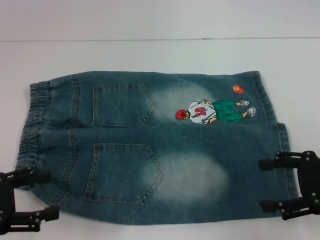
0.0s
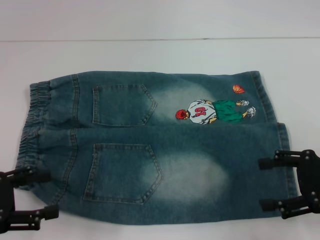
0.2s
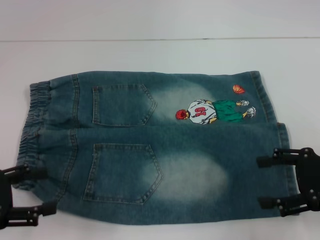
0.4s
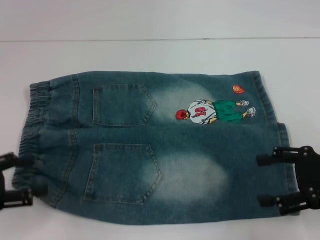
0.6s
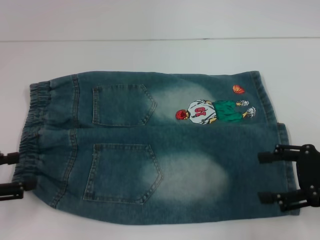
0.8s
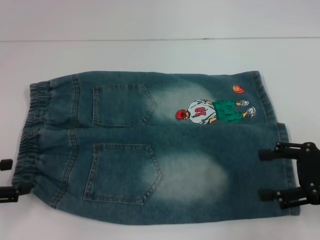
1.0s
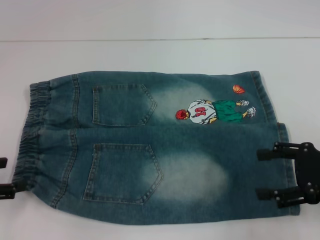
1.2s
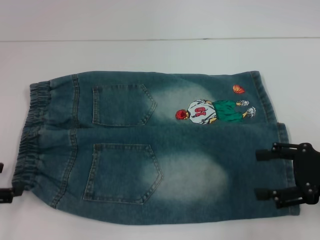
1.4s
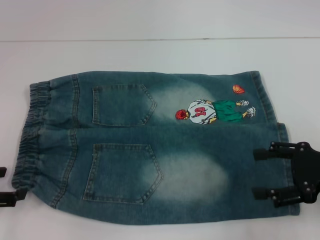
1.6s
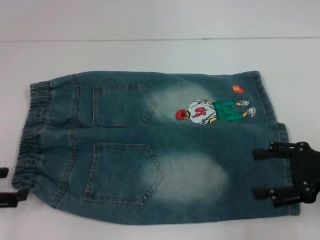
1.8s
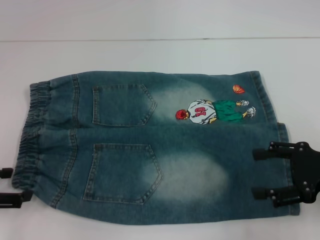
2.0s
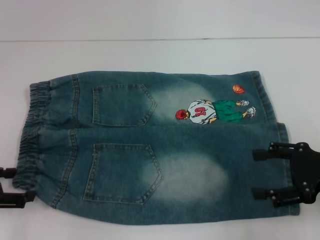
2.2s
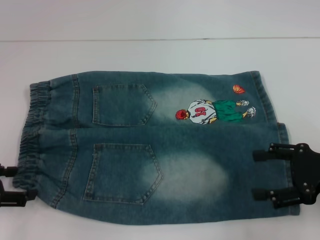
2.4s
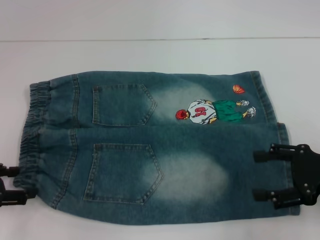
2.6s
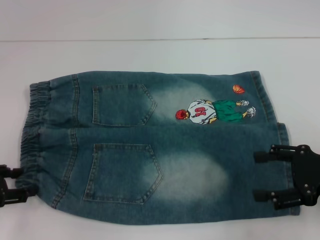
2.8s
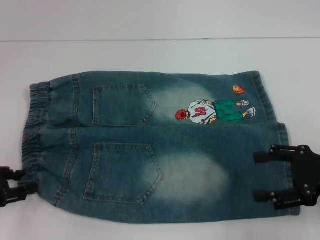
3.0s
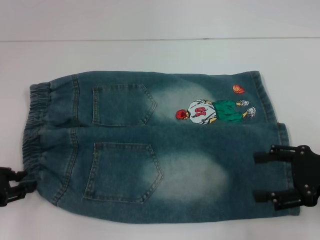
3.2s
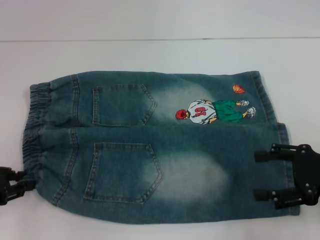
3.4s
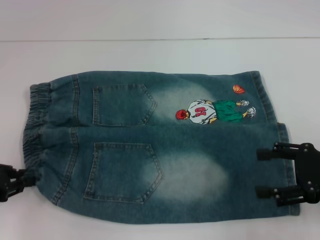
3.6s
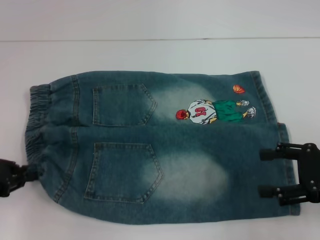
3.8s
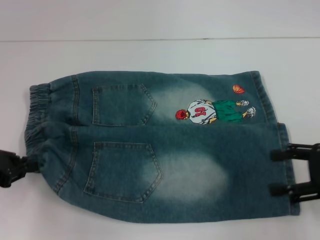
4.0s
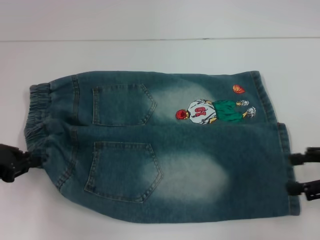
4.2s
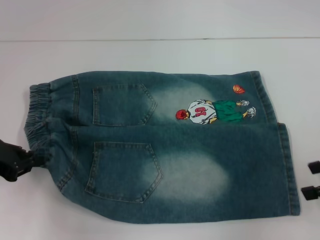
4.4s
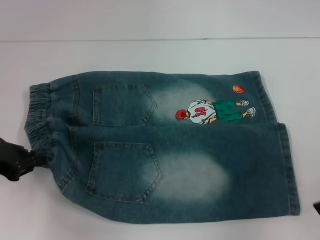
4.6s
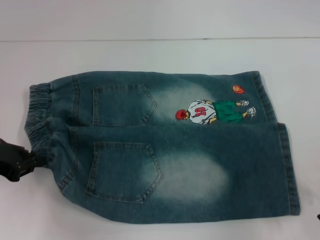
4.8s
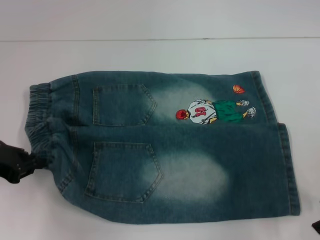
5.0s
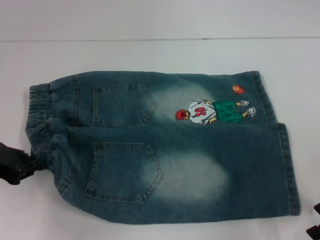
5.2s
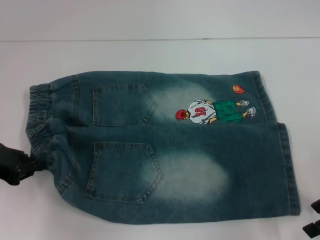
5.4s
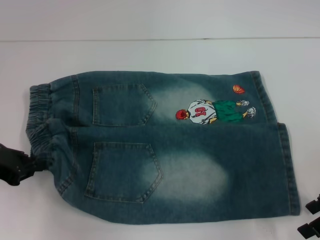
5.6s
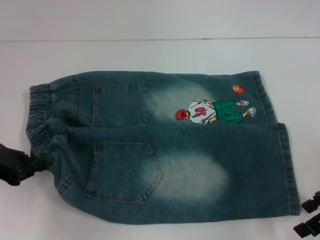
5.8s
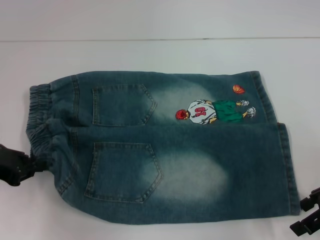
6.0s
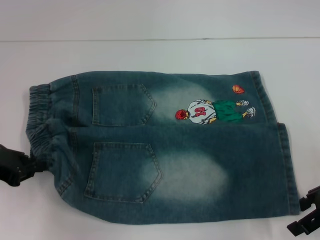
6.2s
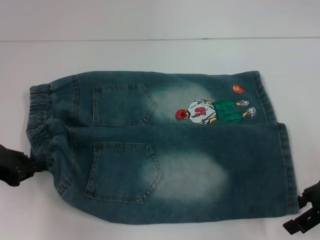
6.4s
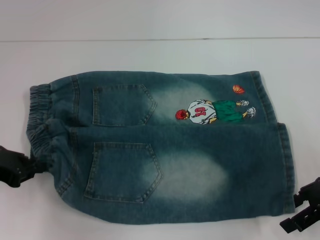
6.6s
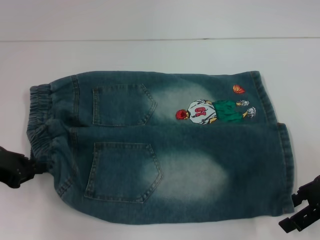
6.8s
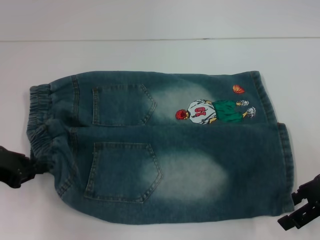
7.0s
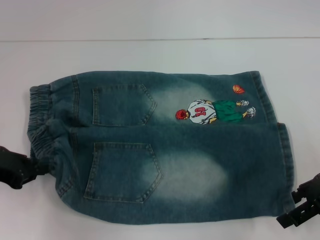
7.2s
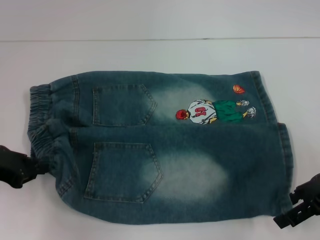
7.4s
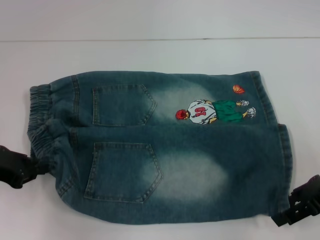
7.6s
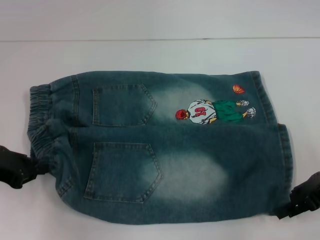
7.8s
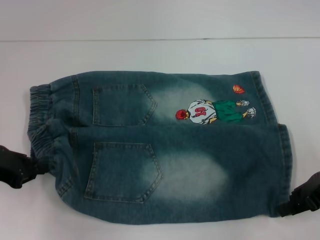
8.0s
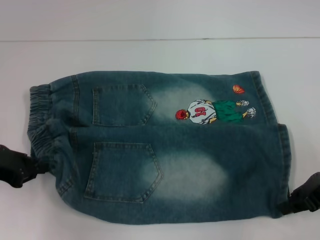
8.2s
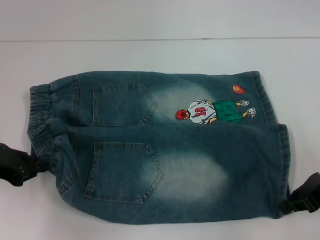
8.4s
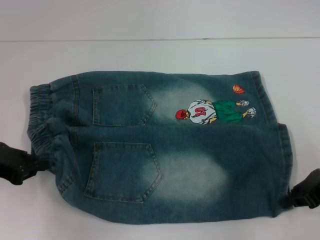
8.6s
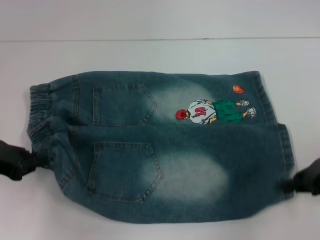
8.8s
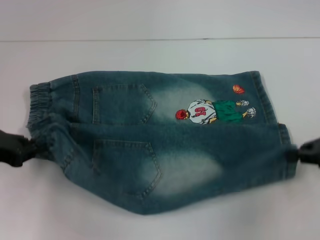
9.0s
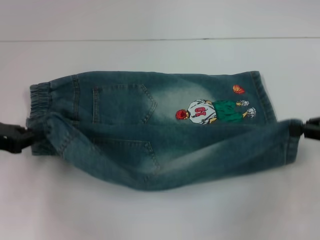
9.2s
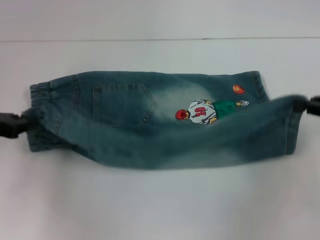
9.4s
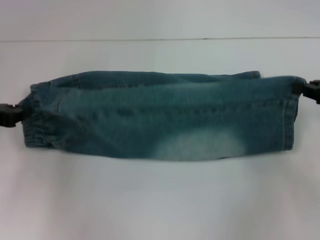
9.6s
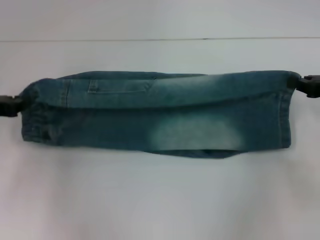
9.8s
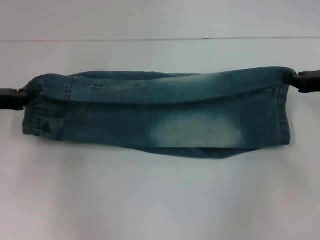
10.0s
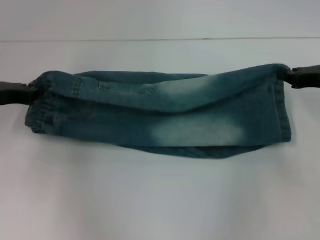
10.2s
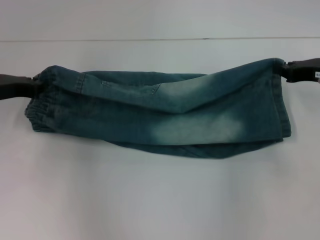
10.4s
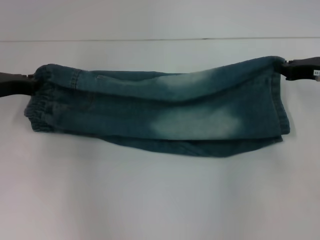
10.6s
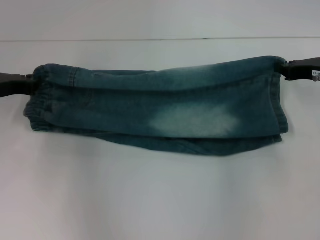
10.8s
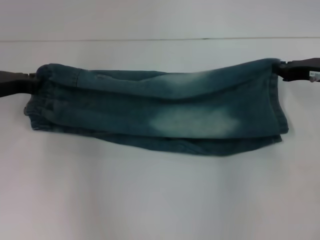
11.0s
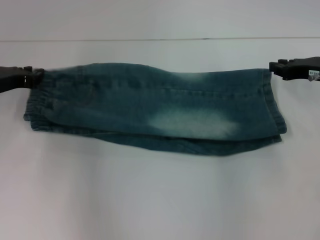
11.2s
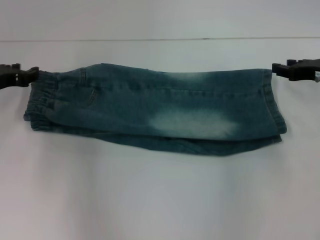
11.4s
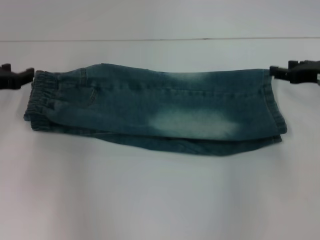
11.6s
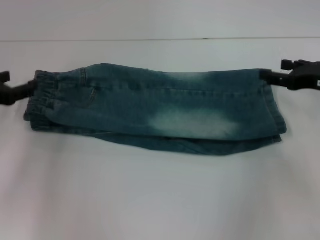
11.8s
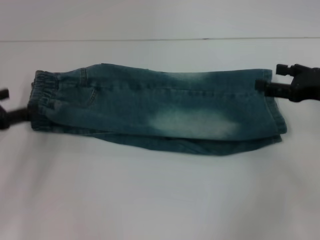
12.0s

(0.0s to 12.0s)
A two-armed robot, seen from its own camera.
Step, 0.0s - 3.2s: Hold the lower left waistband with your left hand.
Step, 3.4s - 8.0s: Grab the lower right pant leg with your right hand.
Step, 8.2s - 11.4s: Fold upward with your right hand.
1.6s - 3.0s: The grippers make only small movements.
3.0s - 4.4s: The right gripper shifts by some 5 cm. Meanwhile the left gripper shifts by roughly 5 cm, and closes up.
4.4s - 6.0s: The right gripper ends up approximately 5 cm from where it was.
6.0s - 7.6s: The grippers make only small movements.
7.6s - 9.0s: The right gripper closes its fingers.
9.0s - 10.4s: Both grippers travel together forward, roughly 10 cm.
10.4s - 12.0s: The left gripper moves backward, some 10 cm, and opens its fingers. Meanwhile the right gripper opens.

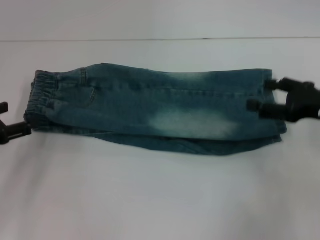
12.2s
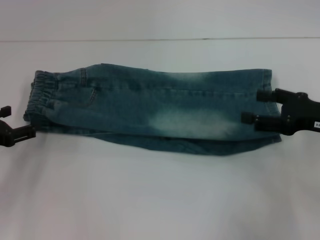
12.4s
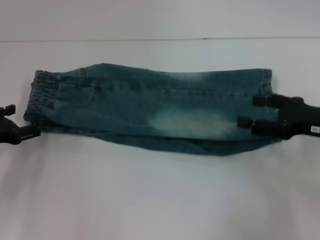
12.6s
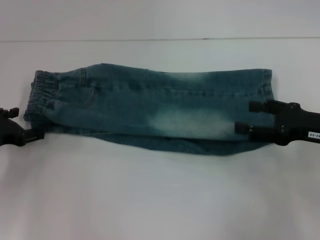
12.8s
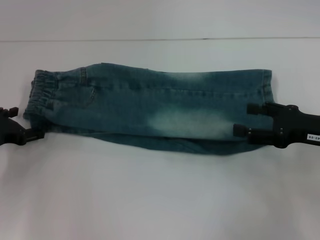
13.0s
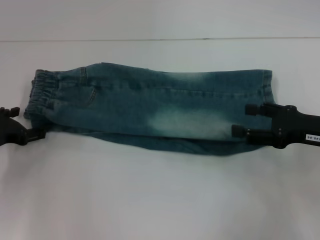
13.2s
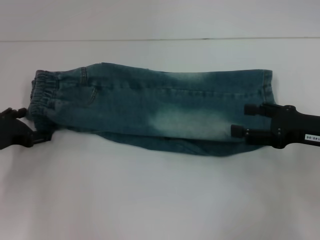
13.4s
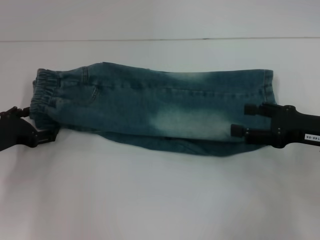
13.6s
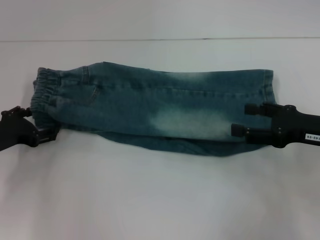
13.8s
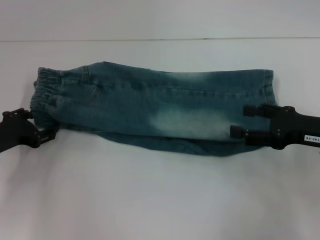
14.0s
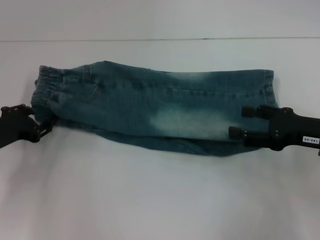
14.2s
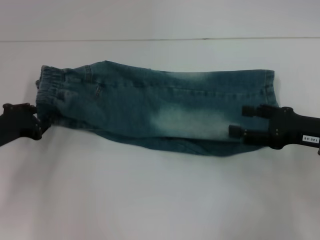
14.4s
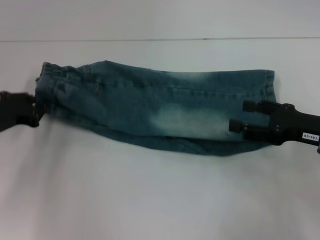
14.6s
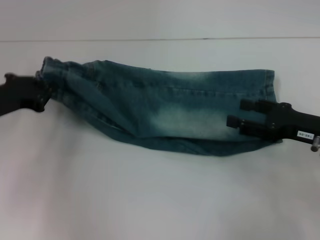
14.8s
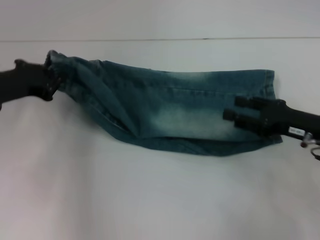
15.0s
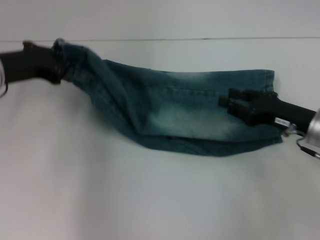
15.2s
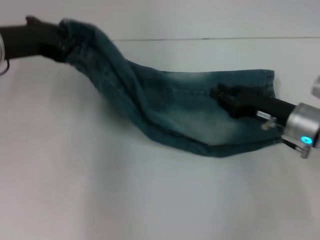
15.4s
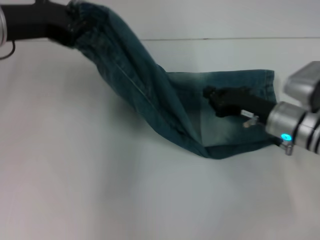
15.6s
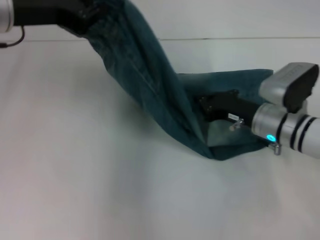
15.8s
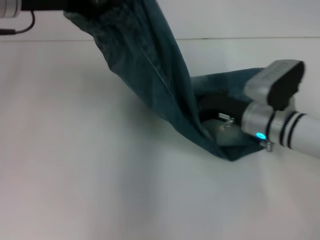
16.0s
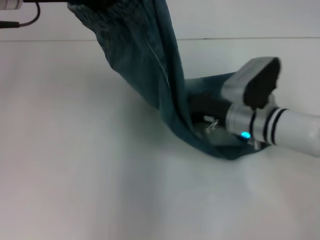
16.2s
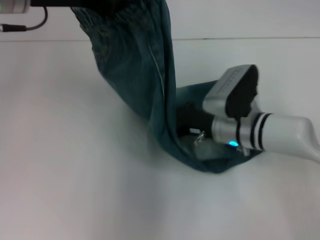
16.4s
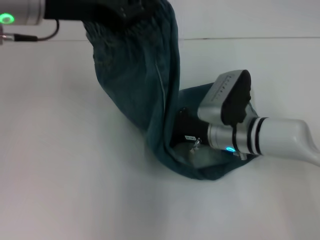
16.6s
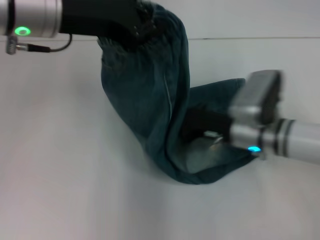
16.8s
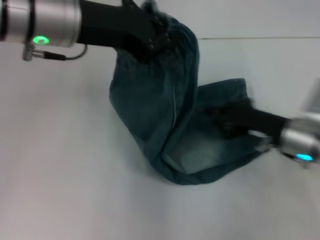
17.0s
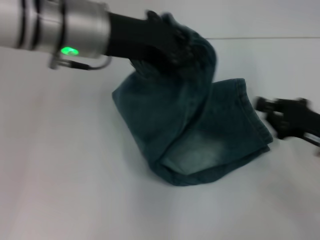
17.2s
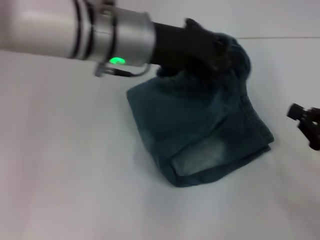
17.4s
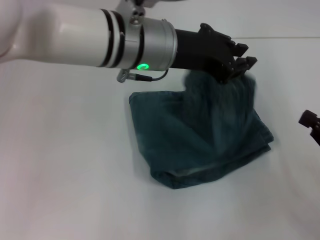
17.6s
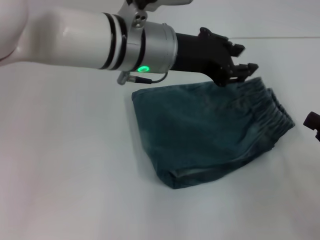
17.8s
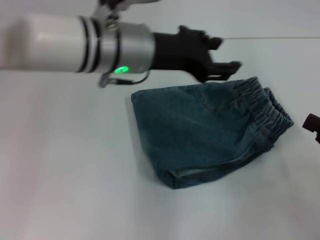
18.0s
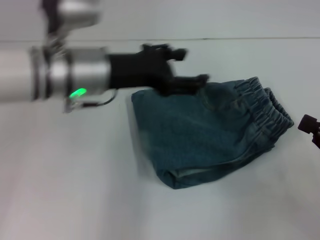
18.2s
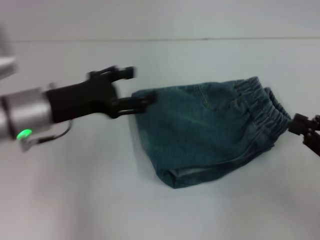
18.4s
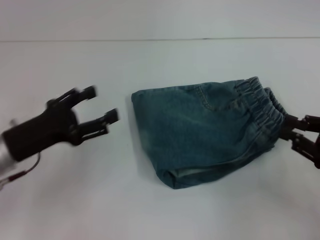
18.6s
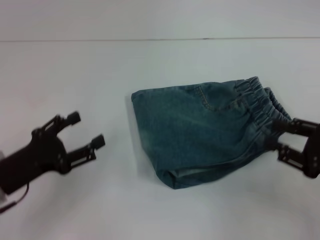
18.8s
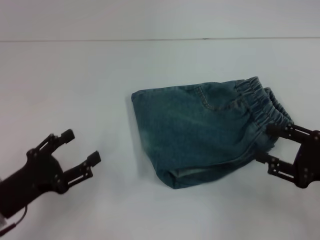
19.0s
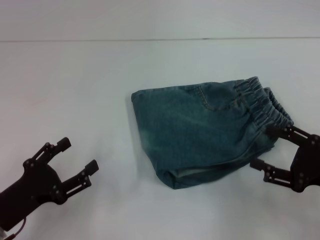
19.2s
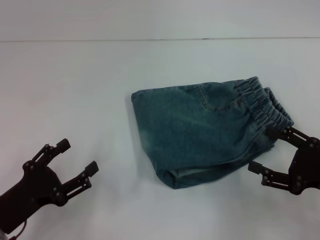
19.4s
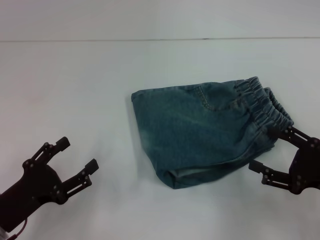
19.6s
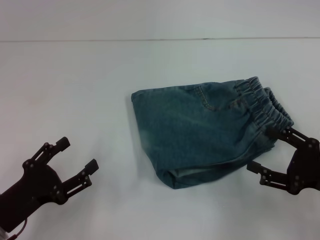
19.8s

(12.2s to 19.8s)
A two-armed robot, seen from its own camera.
Step, 12.2s - 14.2s: Hold the waistband with your left hand.
Step, 14.6s - 16.8s: Press the middle of the pants with your right hand.
Step, 17.0s - 18.2s: Fold to the right with your left hand.
12.2s - 13.8s: The left gripper changes place by about 5 cm.
13.8s - 15.2s: The left gripper shifts about 10 cm upward, and closes up; the right gripper shifts by about 5 cm, and closes up.
15.2s - 16.8s: The right gripper is displaced to the left by some 10 cm, and closes, while the left gripper is displaced upward and to the right by approximately 15 cm.
16.8s - 18.2s: The right gripper is displaced to the right and backward by roughly 20 cm, while the left gripper heads downward, covering approximately 10 cm, travels to the right and back again, approximately 10 cm each way, and opens its fingers.
18.2s - 19.8s: The left gripper heads backward, downward and to the left, covering approximately 25 cm, while the right gripper moves about 5 cm, and opens up.

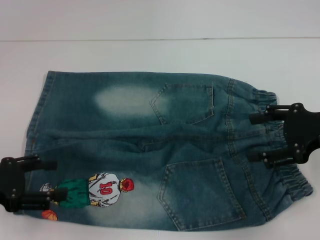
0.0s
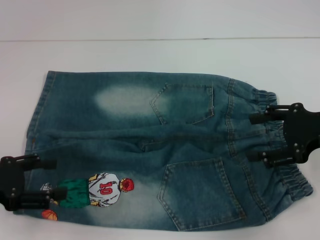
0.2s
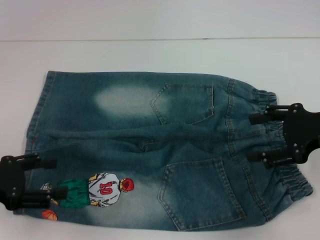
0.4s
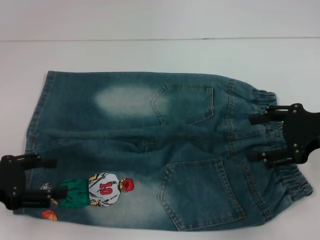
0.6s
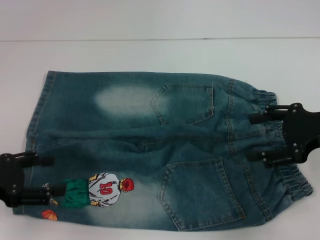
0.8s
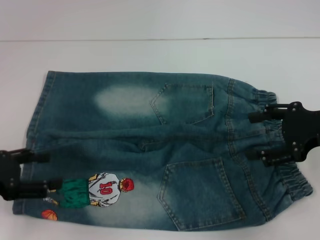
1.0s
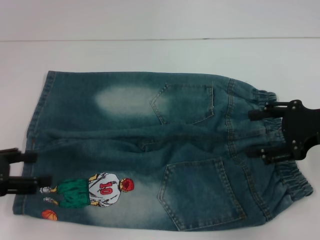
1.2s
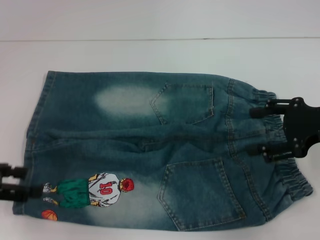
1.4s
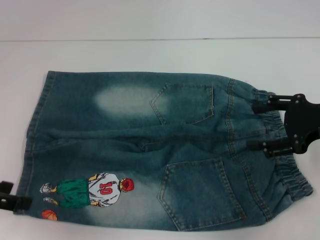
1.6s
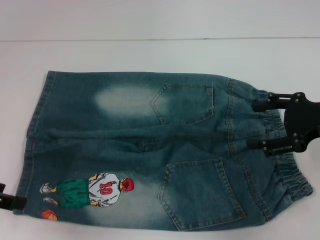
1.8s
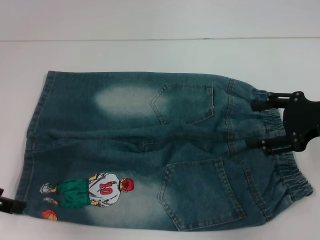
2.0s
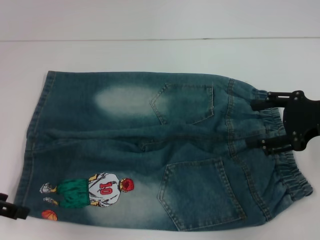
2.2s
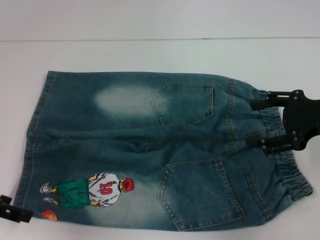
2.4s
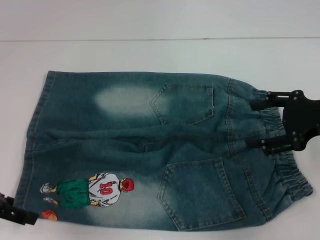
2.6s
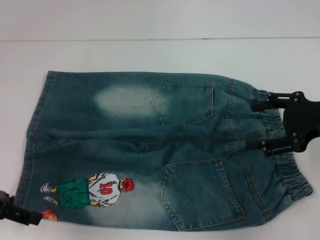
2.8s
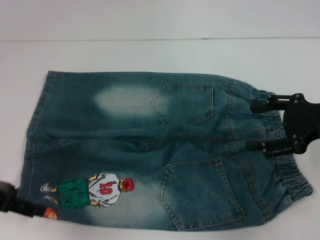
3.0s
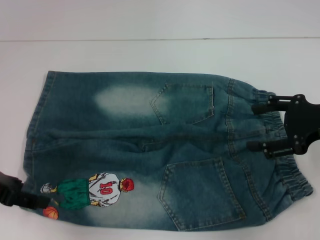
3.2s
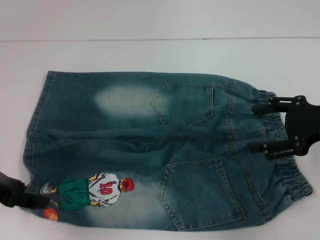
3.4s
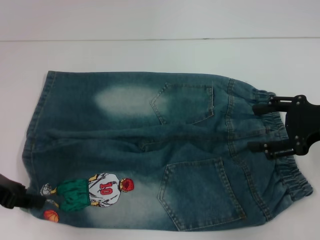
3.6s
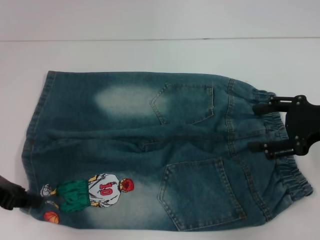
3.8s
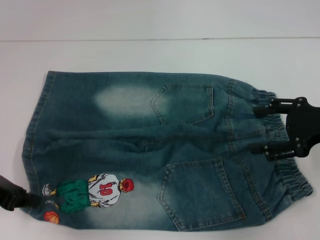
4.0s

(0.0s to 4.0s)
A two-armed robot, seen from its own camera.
Step, 0.0s - 3.8s: Grab the lower left pant leg with your left hand.
2.6s - 4.0s: The left gripper closes up.
